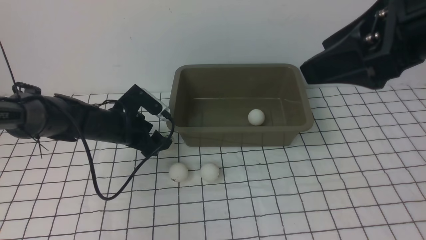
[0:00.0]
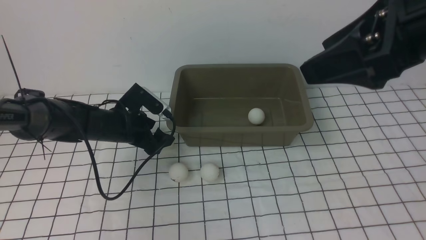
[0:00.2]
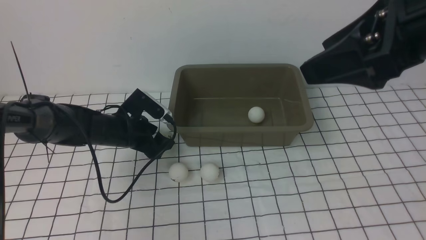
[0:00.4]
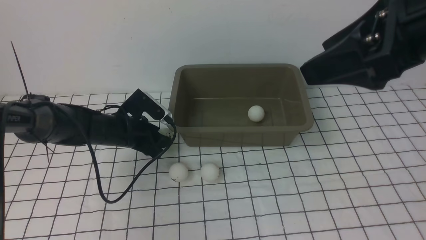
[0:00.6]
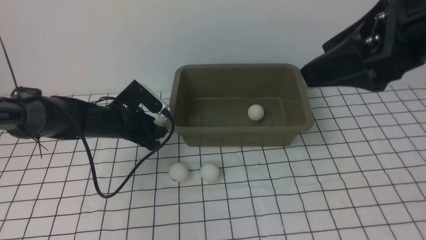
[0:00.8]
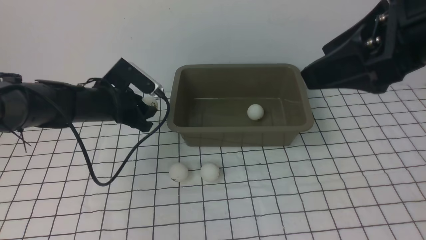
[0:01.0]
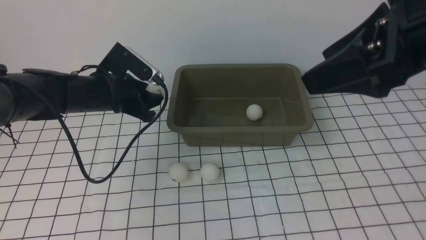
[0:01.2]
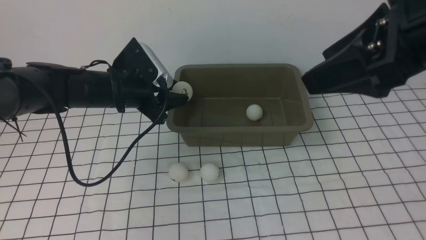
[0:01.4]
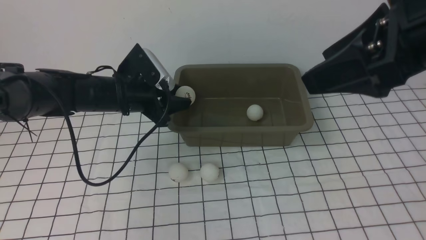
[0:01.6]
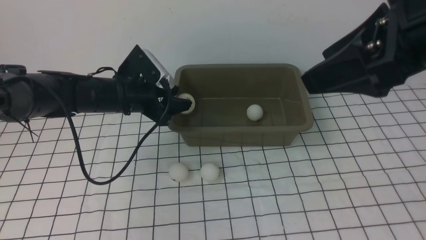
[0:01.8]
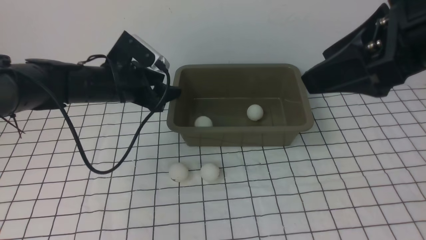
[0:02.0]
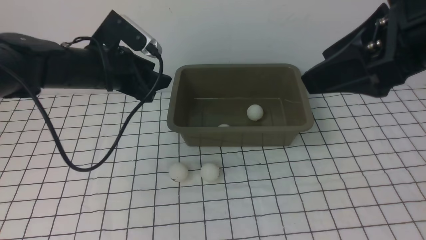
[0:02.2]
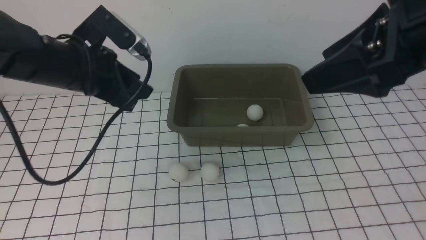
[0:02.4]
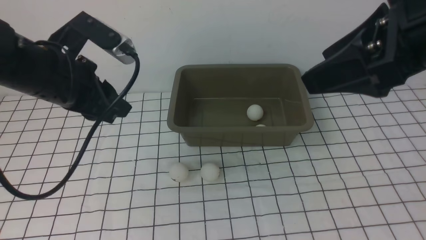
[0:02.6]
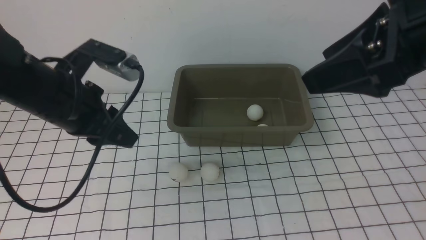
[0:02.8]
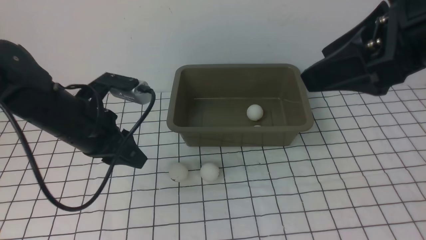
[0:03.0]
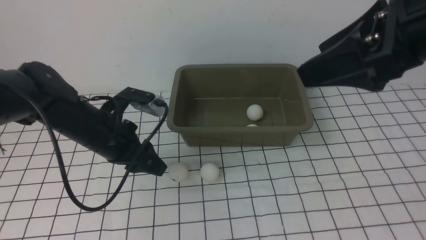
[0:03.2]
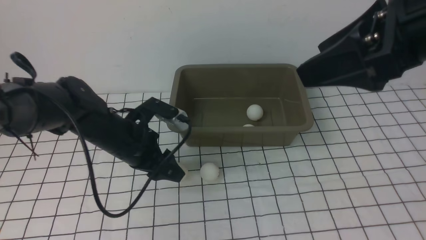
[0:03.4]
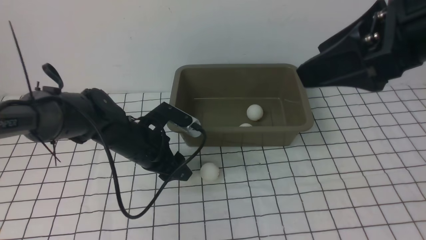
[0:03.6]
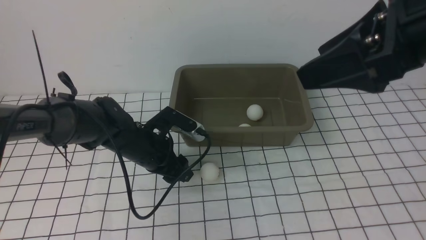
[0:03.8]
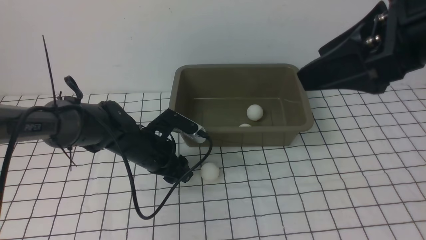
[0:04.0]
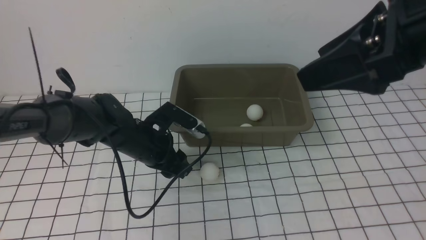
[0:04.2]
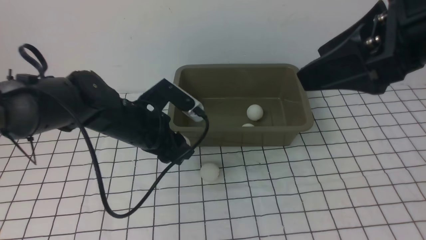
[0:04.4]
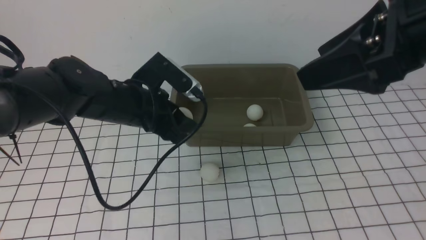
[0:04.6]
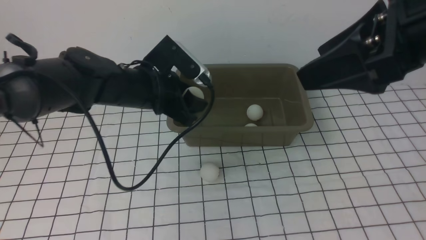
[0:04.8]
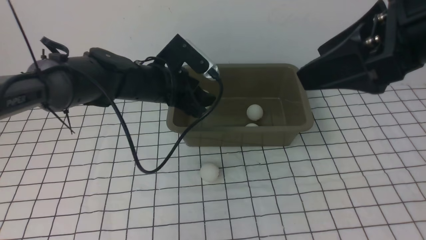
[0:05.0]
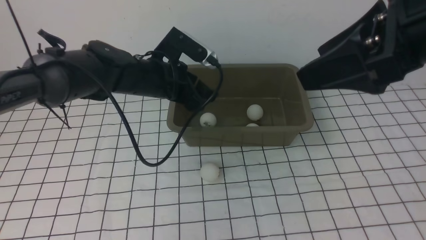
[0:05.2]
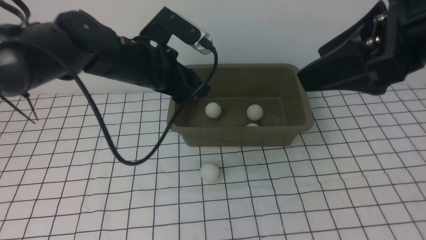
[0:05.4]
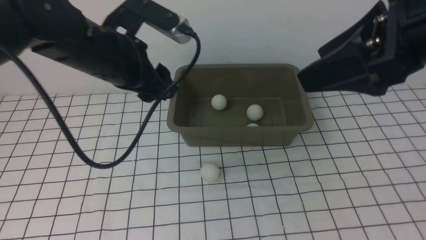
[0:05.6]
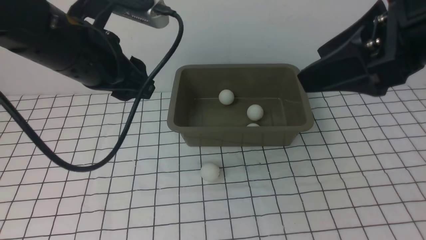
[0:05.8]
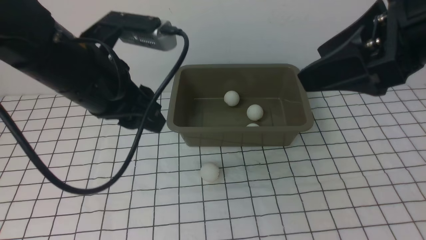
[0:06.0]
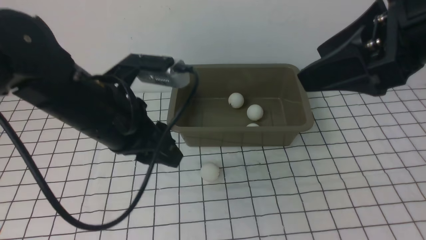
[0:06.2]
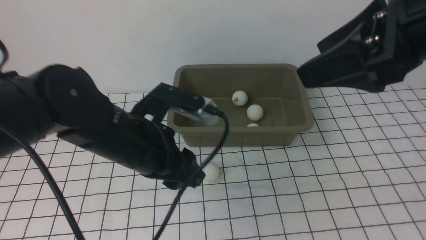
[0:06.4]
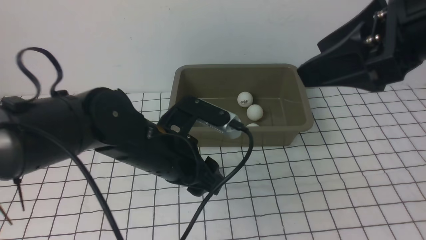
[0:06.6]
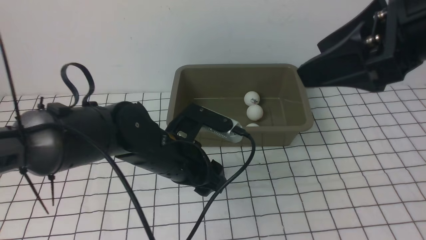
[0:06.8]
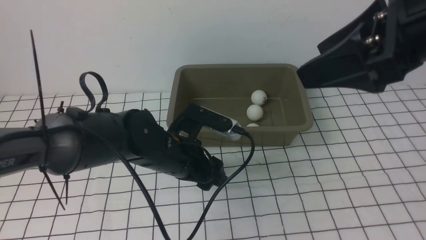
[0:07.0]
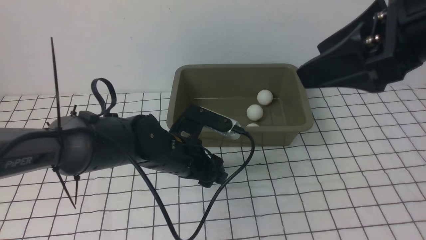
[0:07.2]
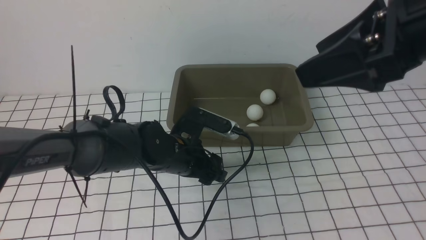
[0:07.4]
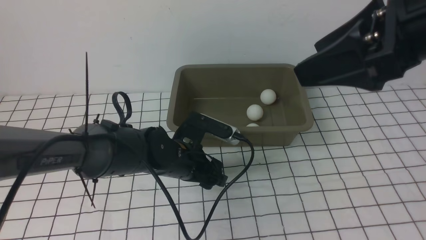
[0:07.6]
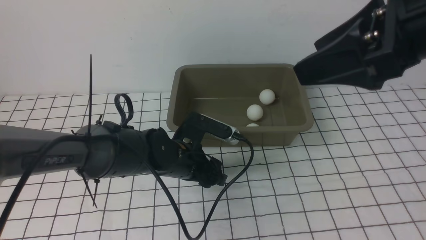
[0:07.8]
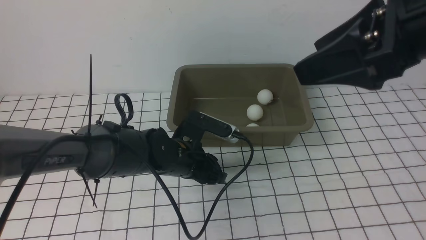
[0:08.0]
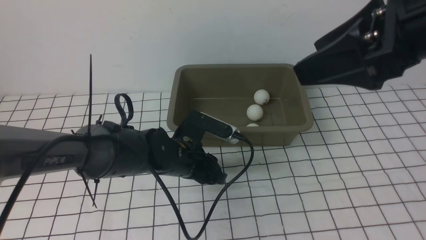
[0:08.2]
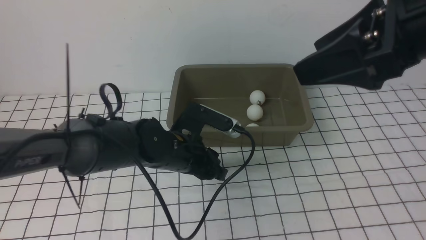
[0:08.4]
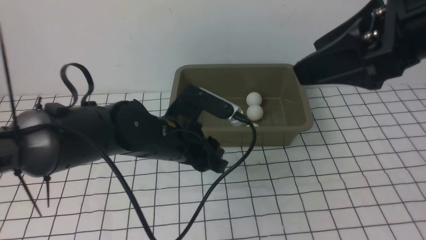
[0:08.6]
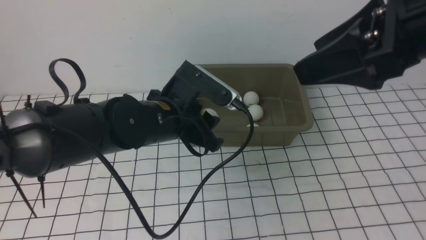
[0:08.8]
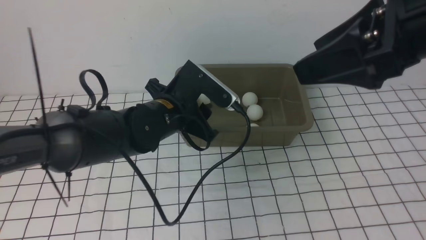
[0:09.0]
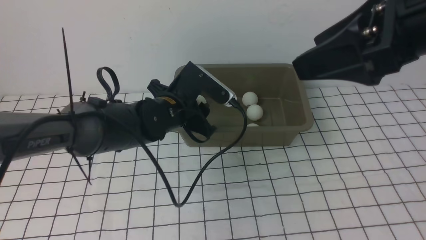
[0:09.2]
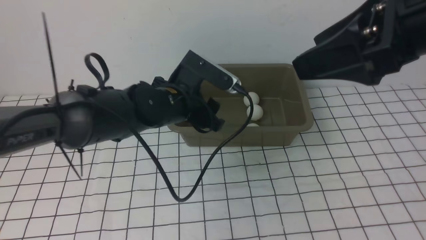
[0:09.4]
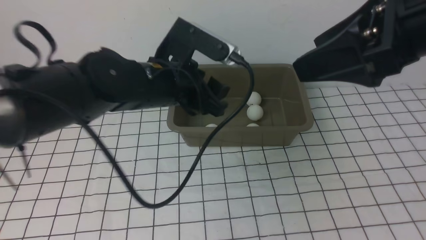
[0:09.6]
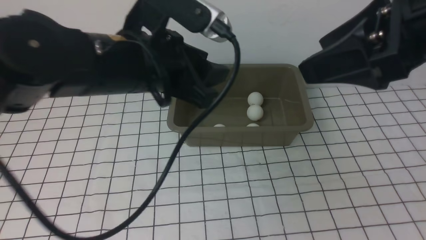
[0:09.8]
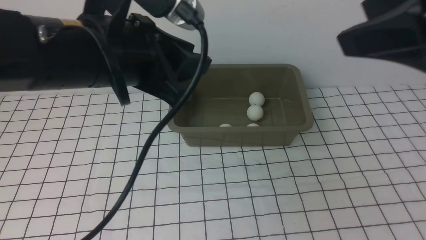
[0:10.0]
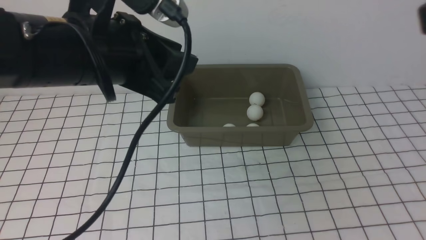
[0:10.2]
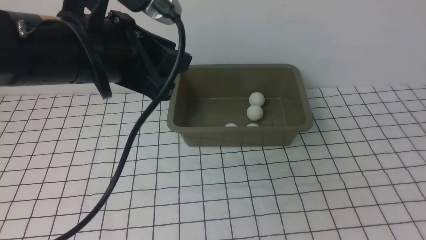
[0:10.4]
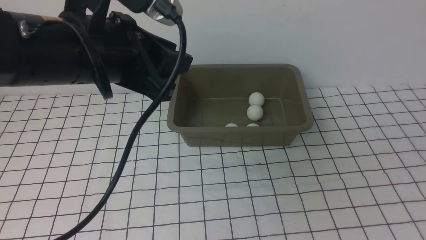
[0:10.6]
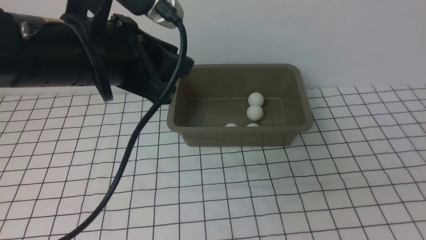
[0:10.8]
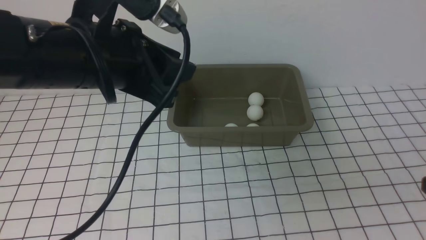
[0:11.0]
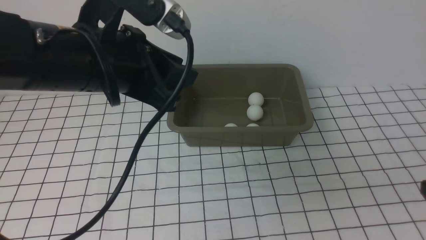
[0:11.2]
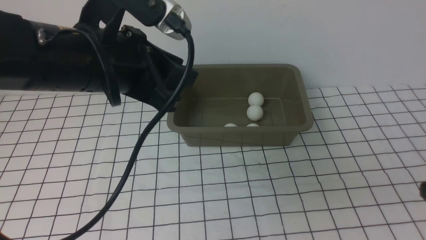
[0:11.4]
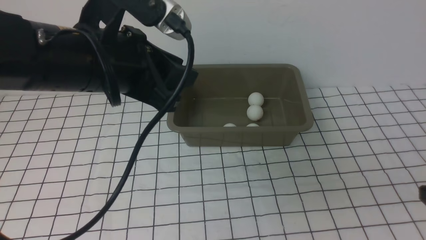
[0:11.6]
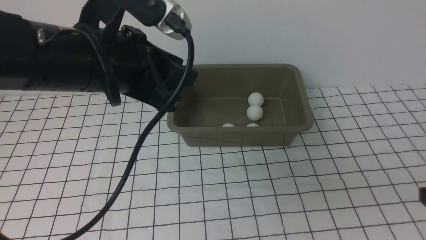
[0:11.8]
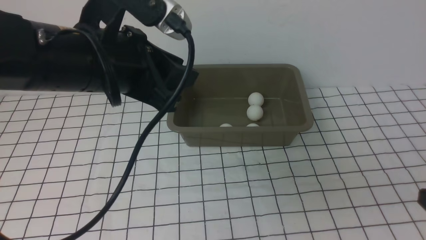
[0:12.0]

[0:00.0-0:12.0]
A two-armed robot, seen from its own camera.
Step, 0:01.2 to 0:02.0: use the left arm to put the table tennis ball into the box.
Step, 0:02.2 to 0:04.2: use the left arm to clamp the table tennis ball closest to it.
Step, 0:04.6 to 0:05.2: use the left arm to put the table tennis ball into the box.
Step, 0:05.4 to 0:08.4: use the left arm to clamp the table tennis ball closest to it.
Step, 0:08.6 to 0:09.4: use the left arm to put the table tennis ball into the box.
0:00.0 to 0:01.6: The left gripper is displaced upward by roughly 10 cm, and closes up.
0:01.6 to 0:03.0: The left gripper is displaced backward by about 10 cm.
0:03.0 to 0:04.4: The left gripper shifts some 5 cm to the right, and reaches some 10 cm downward, then returns.
0:04.4 to 0:06.0: The left gripper travels upward and backward by approximately 10 cm, and opens, then closes once more.
0:06.0 to 0:07.6: The left gripper is displaced downward and to the right by approximately 20 cm, and opens up.
0:07.6 to 0:09.0: The left gripper moves upward, roughly 10 cm, and closes up.
0:09.0 to 0:10.4: The right gripper shifts some 15 cm backward and to the right, while the left gripper shifts roughly 20 cm upward and backward.
0:10.4 to 0:12.0: The right gripper is displaced downward by some 15 cm.

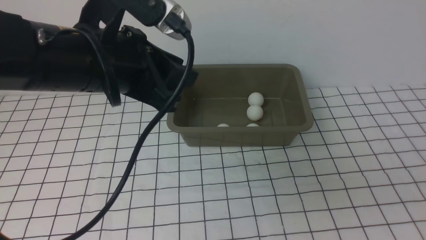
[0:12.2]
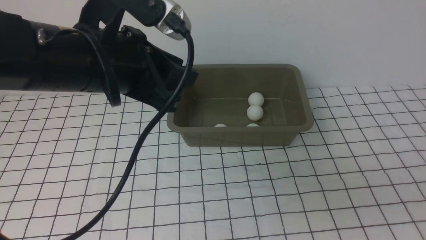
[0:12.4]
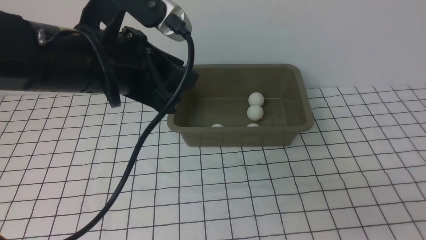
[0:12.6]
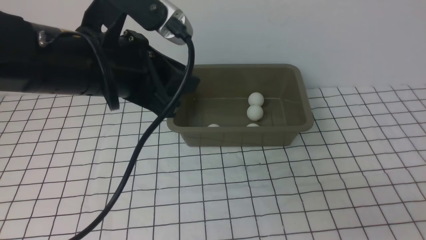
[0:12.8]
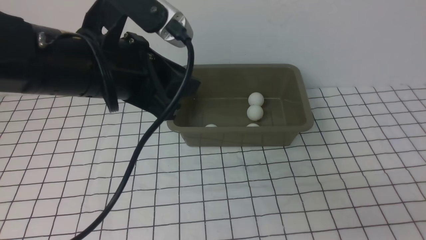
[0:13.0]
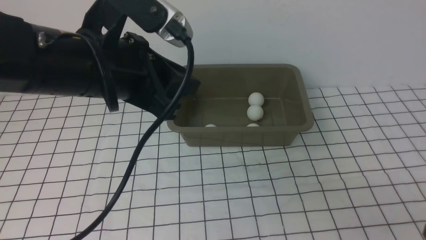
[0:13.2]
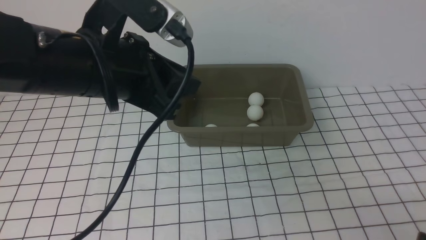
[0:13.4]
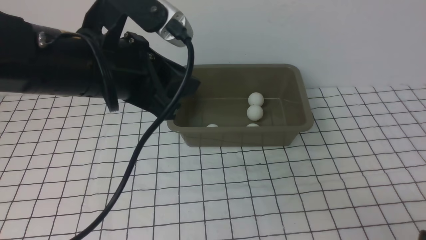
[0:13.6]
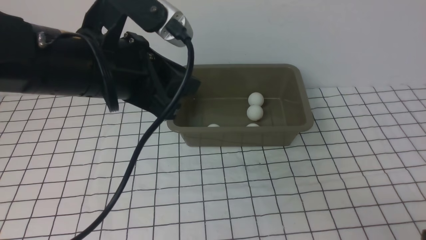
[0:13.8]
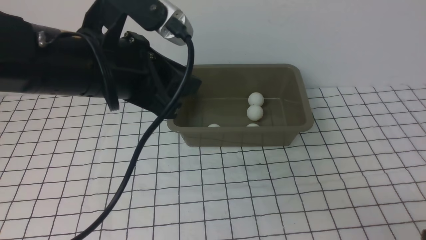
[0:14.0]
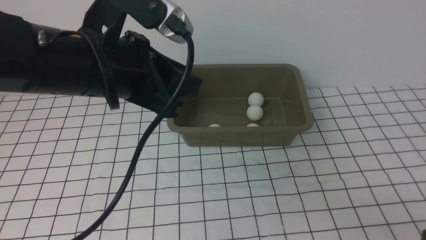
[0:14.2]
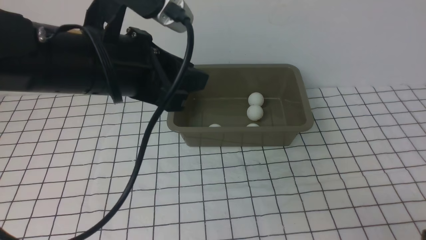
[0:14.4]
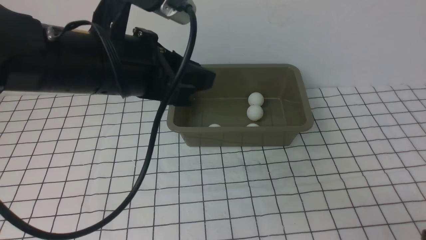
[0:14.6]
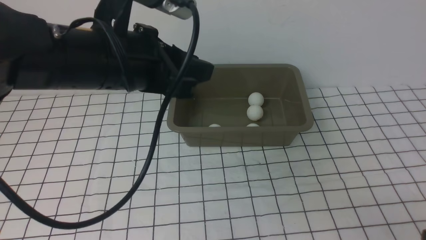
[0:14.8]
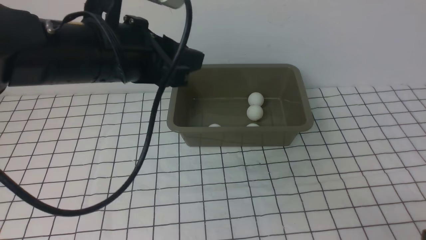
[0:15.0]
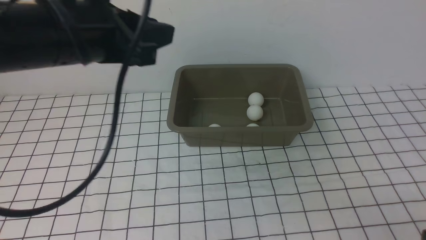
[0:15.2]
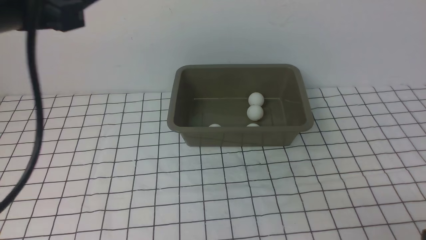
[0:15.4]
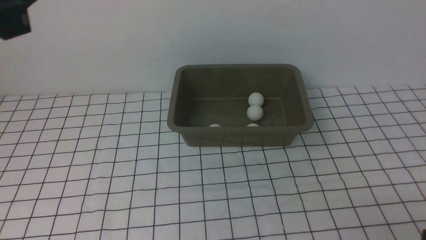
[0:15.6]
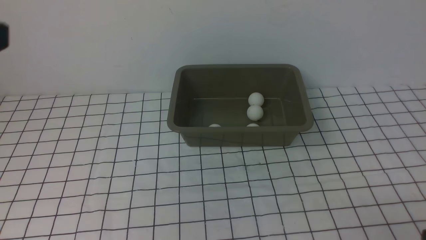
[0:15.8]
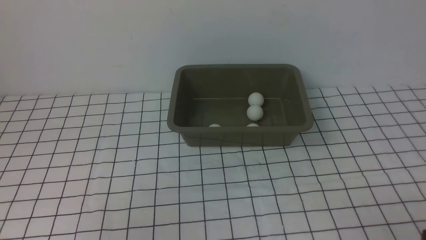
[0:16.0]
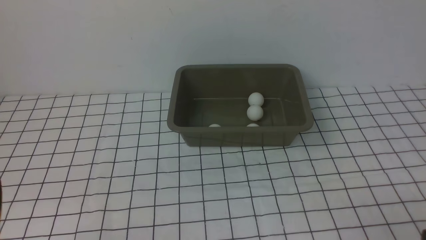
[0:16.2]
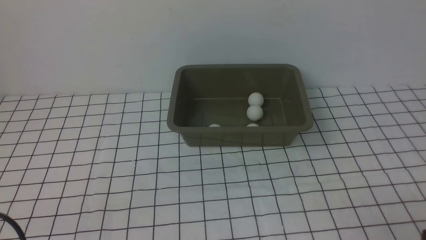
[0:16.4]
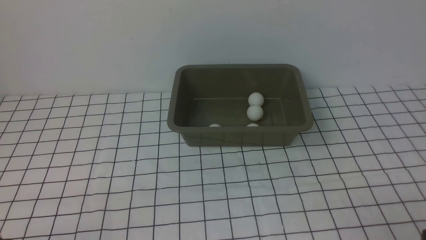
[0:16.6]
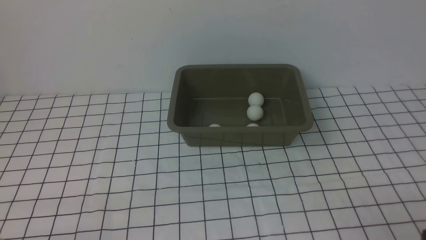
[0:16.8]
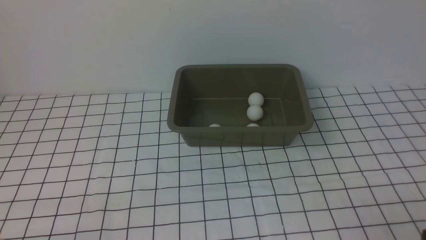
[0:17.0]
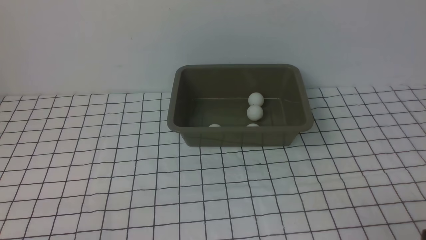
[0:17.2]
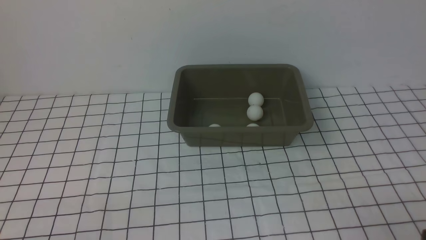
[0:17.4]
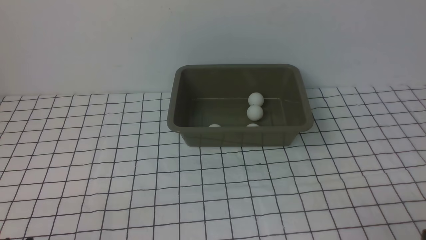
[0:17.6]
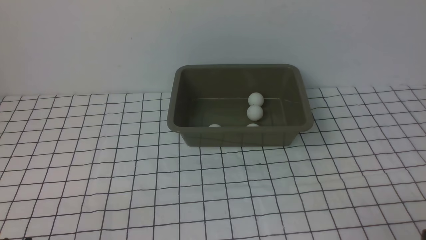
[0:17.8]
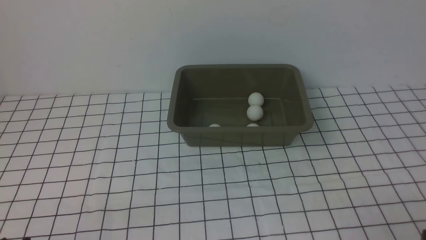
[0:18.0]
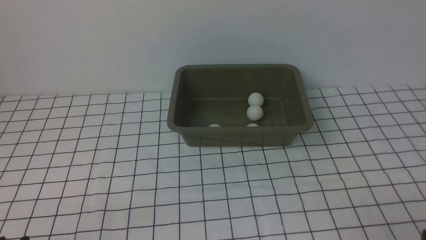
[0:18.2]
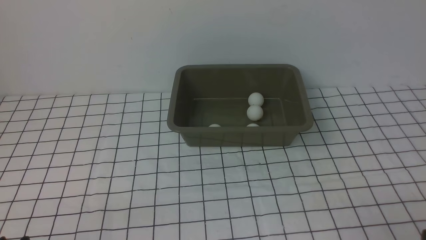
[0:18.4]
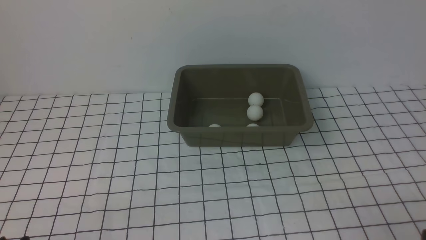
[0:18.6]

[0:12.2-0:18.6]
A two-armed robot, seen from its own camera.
0:12.2 to 0:13.8: The right gripper is displaced downward by approximately 10 cm.
0:13.8 to 0:15.4: The left gripper travels to the left, upward and backward by some 15 cm.
0:15.4 to 0:17.0: The left gripper heads downward and backward, covering approximately 30 cm.
